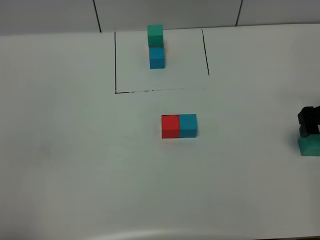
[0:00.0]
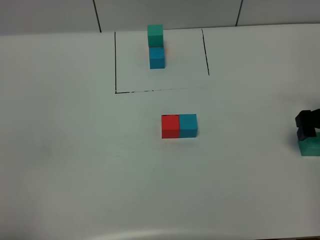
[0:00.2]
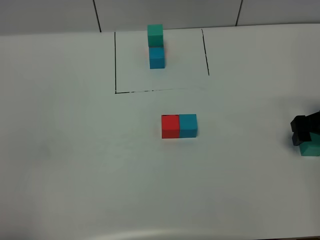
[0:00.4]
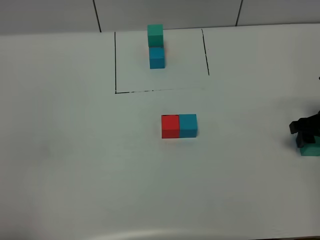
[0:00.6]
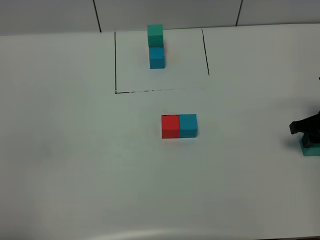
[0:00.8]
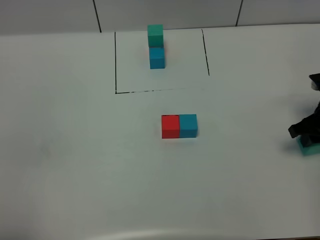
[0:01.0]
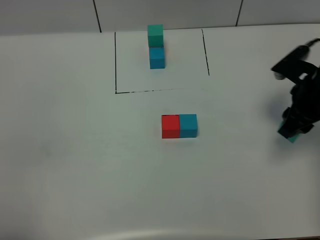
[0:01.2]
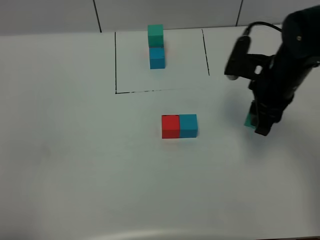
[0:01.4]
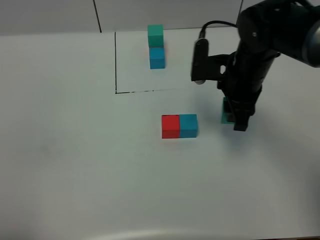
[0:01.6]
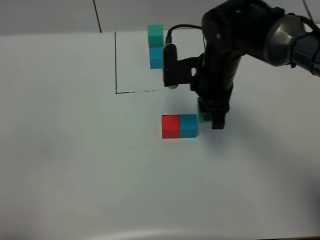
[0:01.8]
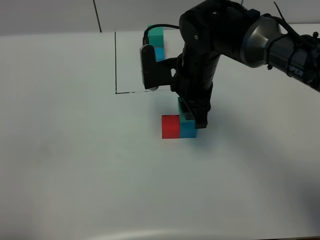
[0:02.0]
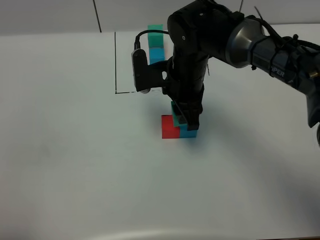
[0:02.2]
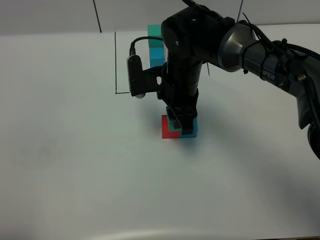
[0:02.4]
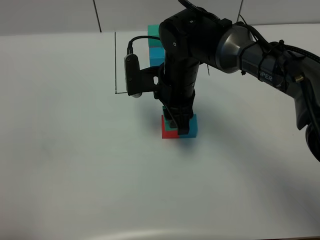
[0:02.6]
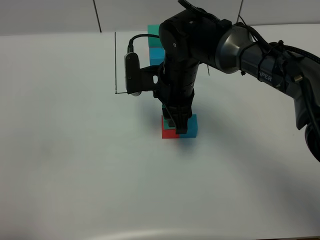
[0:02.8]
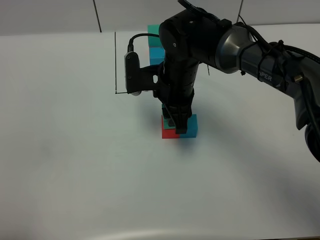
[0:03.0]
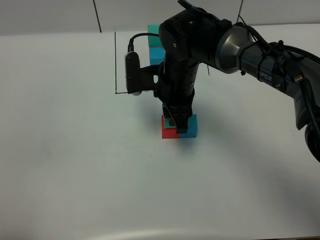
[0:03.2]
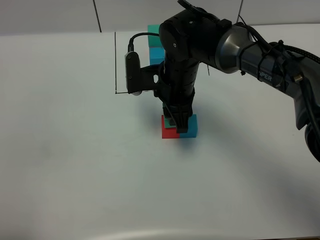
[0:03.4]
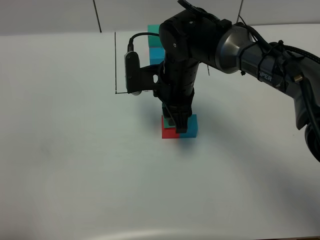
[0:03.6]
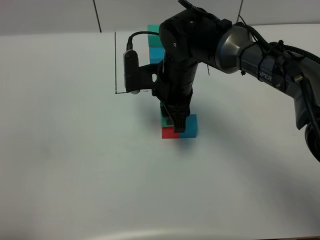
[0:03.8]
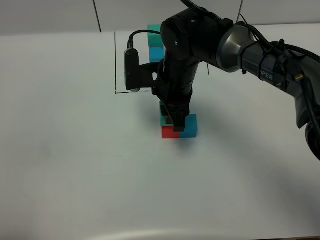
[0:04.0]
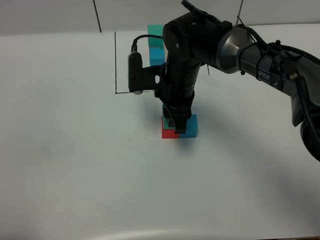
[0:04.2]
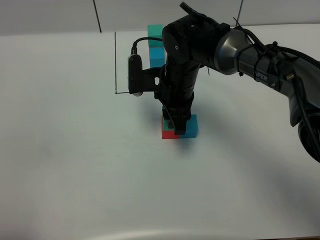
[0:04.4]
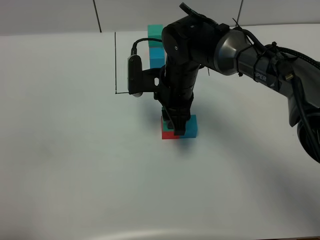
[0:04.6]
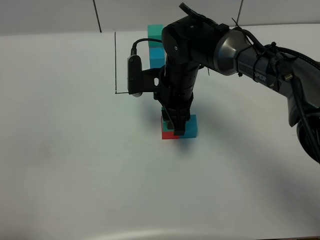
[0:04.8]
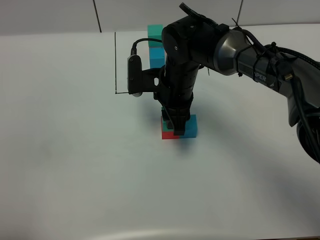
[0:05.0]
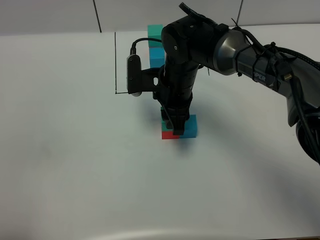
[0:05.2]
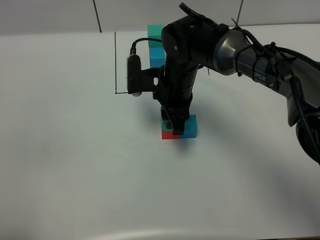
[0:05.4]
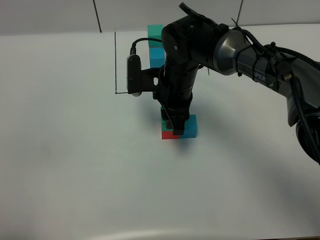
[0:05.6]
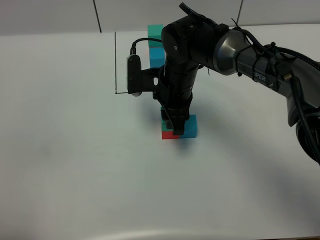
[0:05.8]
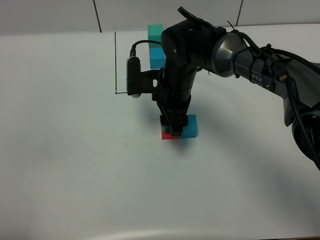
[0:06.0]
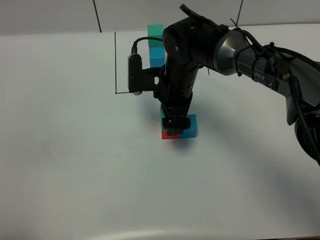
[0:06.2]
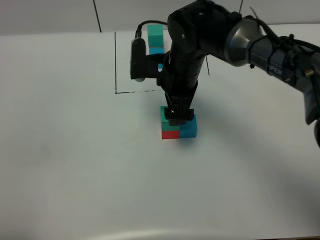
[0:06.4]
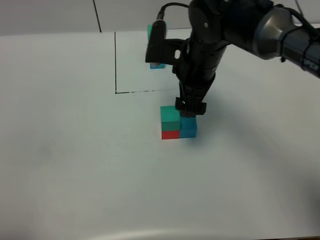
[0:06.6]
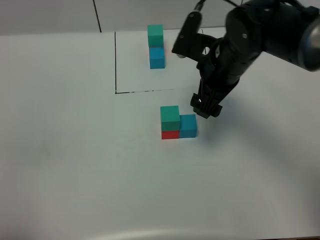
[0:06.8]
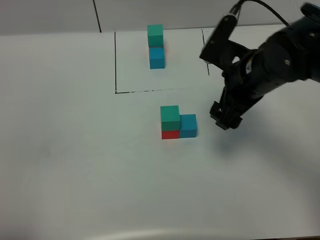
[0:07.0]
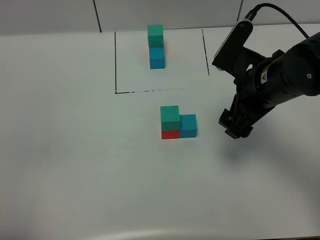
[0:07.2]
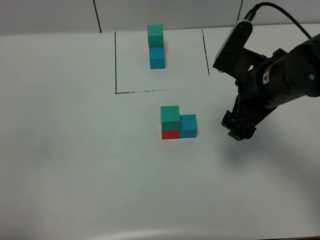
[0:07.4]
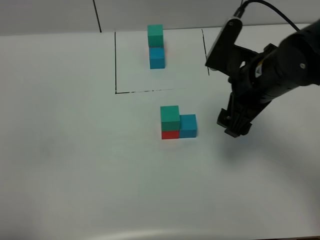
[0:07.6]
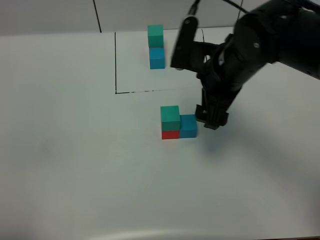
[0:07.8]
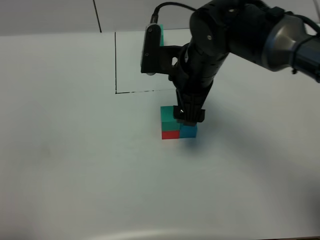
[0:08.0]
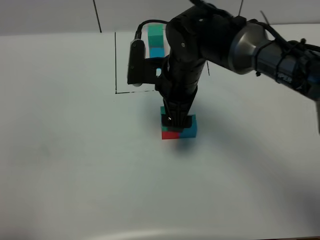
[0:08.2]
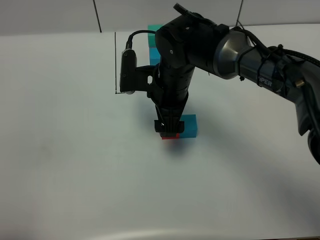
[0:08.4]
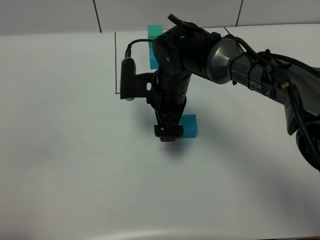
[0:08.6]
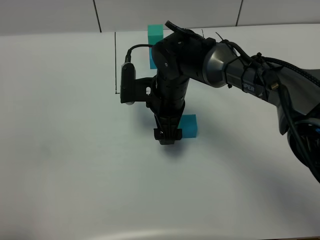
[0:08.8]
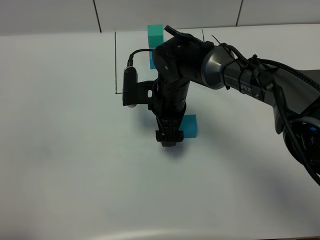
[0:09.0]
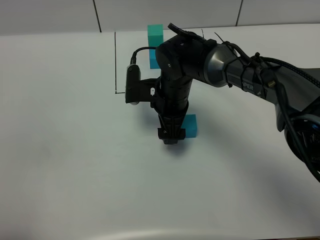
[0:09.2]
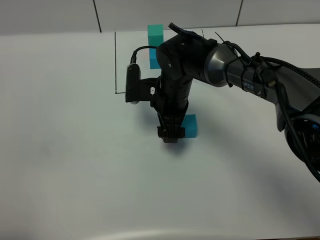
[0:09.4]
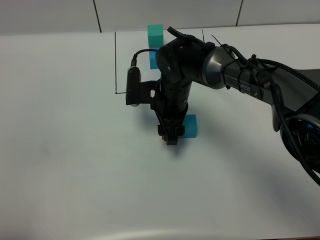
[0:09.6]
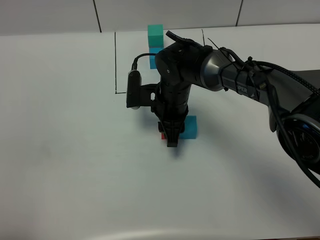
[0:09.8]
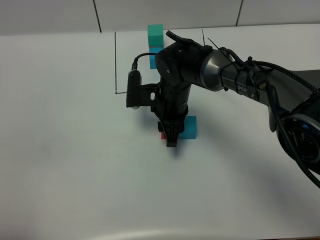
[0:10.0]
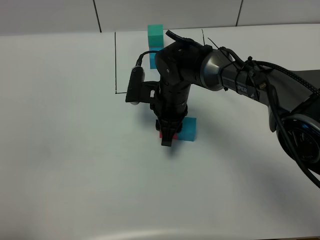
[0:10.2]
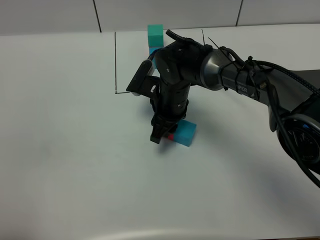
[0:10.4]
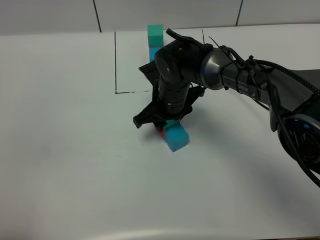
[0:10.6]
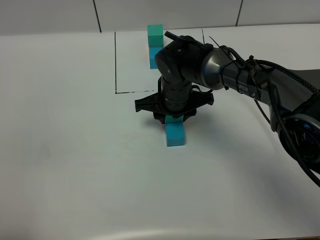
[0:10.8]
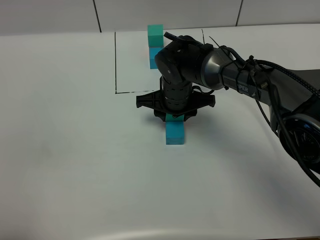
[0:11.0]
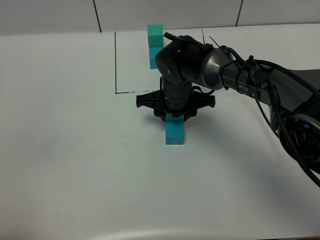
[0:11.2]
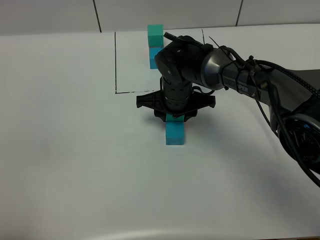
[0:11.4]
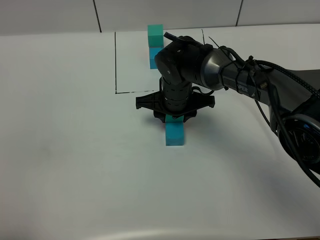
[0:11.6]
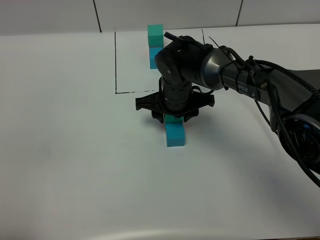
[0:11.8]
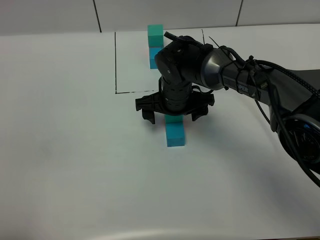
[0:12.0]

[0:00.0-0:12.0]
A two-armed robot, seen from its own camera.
Task of the whole recording: According to the building block template in front, assemble the scattered blocks together.
Step, 0:00.0 to 0:06.2: Put the green cube on the red cube.
0:00.0 to 0:01.6: The right gripper travels to the left by some 20 cm, and closes up.
0:01.6 to 0:03.0: The right gripper shifts some 10 cm to the left.
0:03.0 to 0:04.4: The grippers make only small movements.
0:04.4 to 0:06.0: The right gripper opens up.
0:06.0 to 0:07.6: The right gripper moves to the right, upward and backward, about 15 cm, and opens its fingers.
0:07.6 to 0:09.0: The right gripper moves to the left, downward and forward, approximately 20 cm.
0:09.0 to 0:10.4: The right gripper closes its fingers.
0:10.4 to 0:12.0: The right gripper opens.

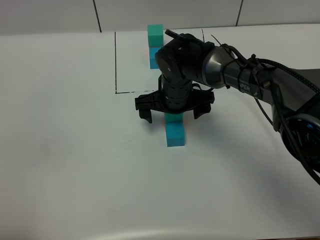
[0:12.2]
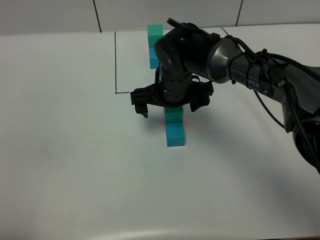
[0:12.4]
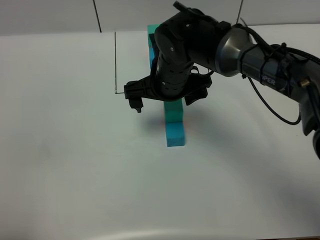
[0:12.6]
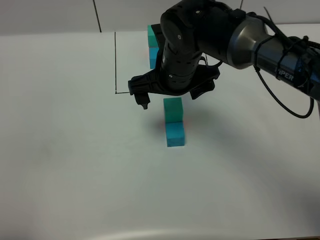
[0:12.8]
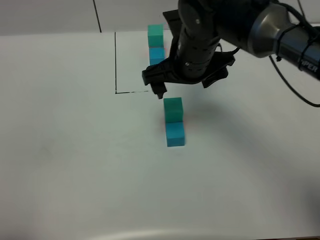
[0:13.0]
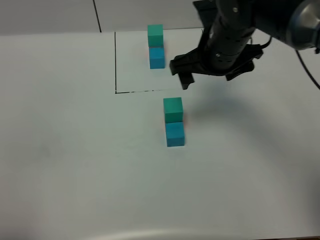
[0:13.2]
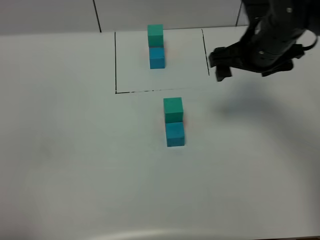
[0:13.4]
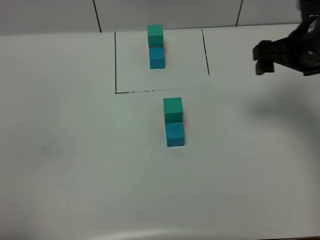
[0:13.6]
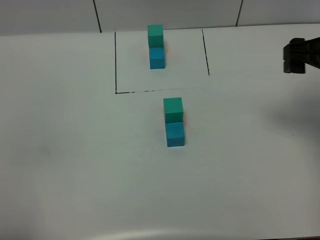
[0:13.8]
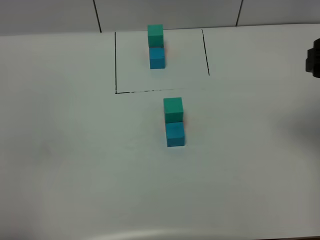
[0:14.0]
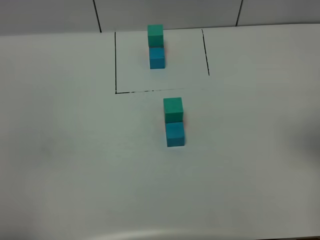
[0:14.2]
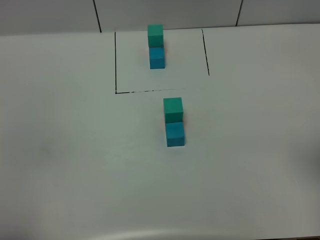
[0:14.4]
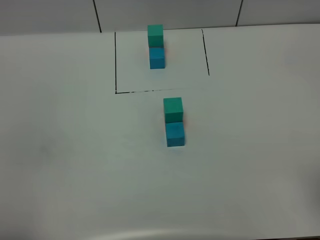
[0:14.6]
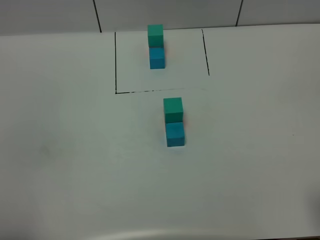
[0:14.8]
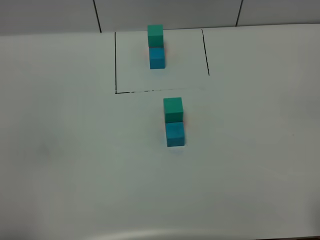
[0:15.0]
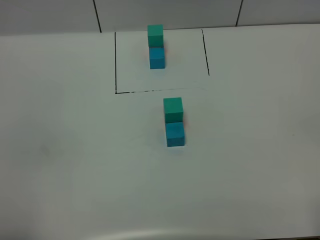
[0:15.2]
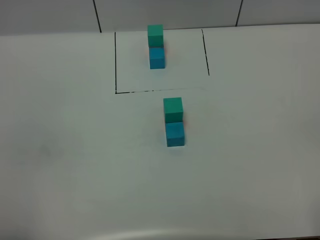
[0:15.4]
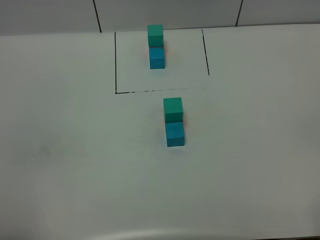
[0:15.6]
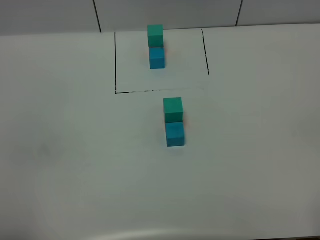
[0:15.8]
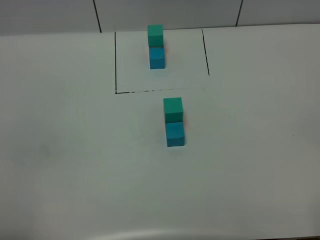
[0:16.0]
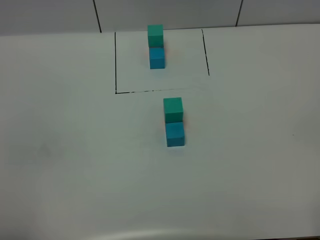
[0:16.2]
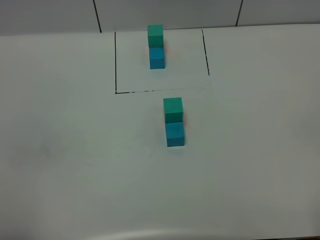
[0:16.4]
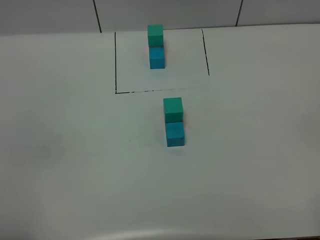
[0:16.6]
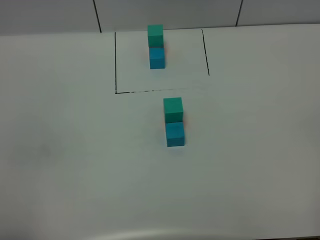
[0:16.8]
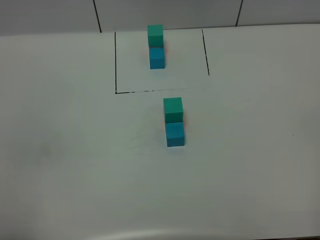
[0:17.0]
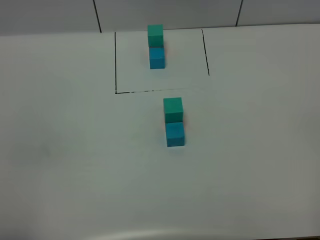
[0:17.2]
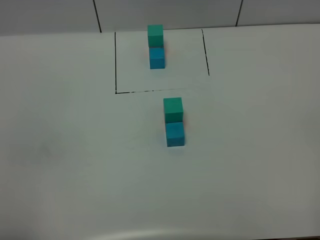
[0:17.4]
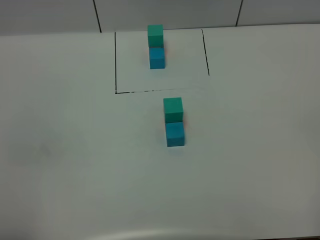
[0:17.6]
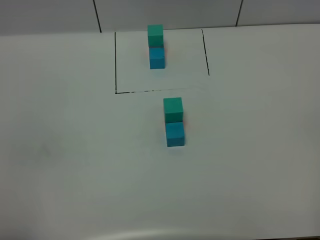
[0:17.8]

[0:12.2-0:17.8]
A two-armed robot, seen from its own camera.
Task of the whole recording: According to the building block template in front, assemble the scattered blocks together.
0:12.2 to 0:13.6: The right gripper moves to the right and upward, about 25 cm.
0:13.6 to 0:15.0: The right gripper shifts approximately 30 cm backward.
